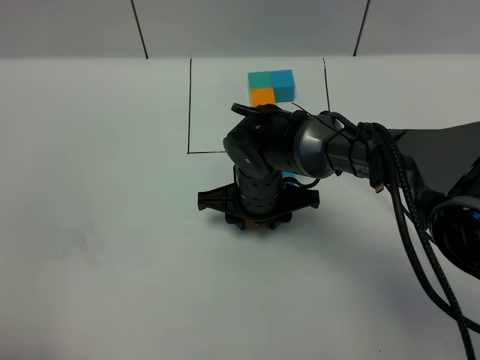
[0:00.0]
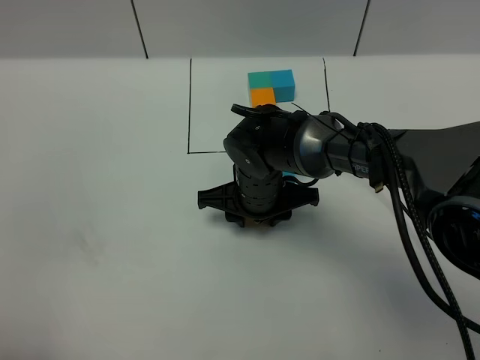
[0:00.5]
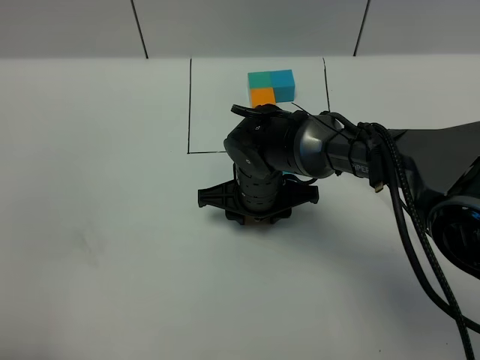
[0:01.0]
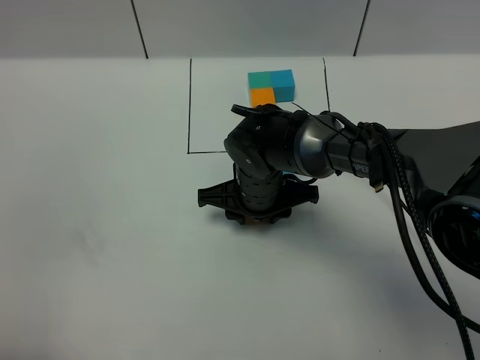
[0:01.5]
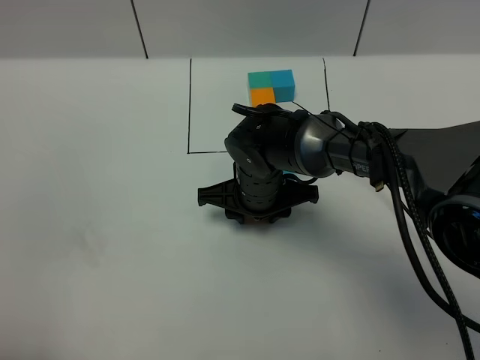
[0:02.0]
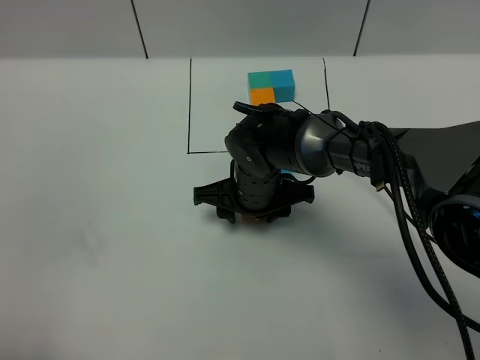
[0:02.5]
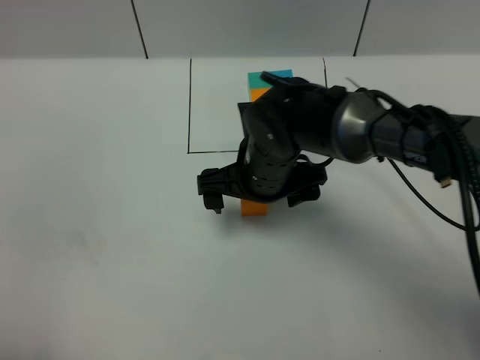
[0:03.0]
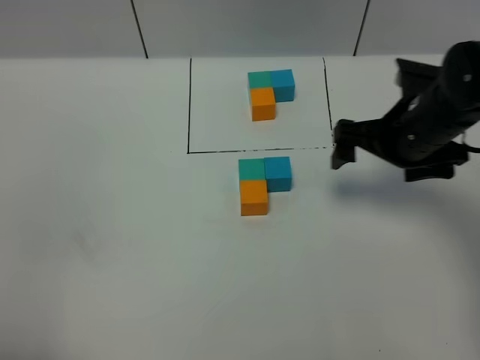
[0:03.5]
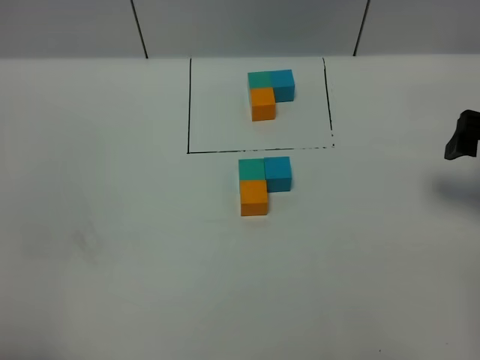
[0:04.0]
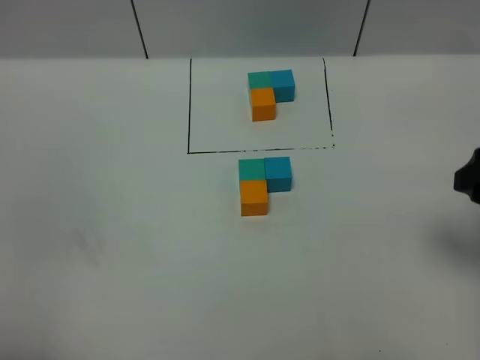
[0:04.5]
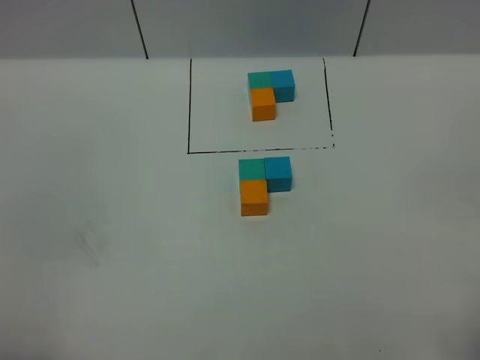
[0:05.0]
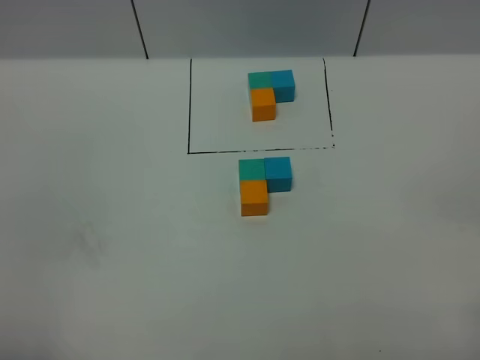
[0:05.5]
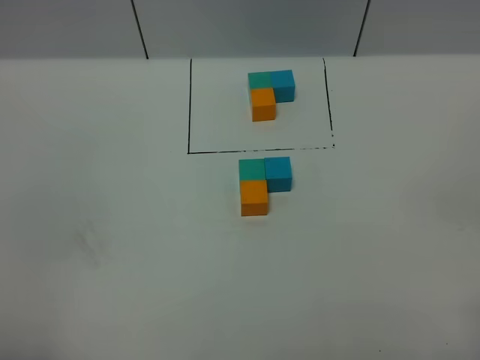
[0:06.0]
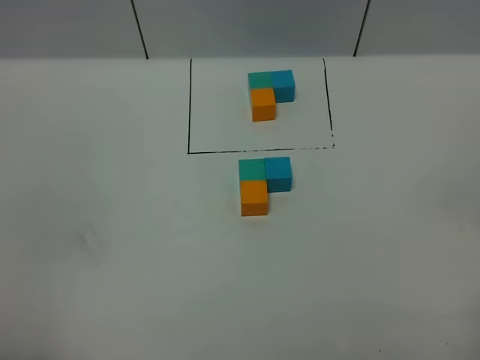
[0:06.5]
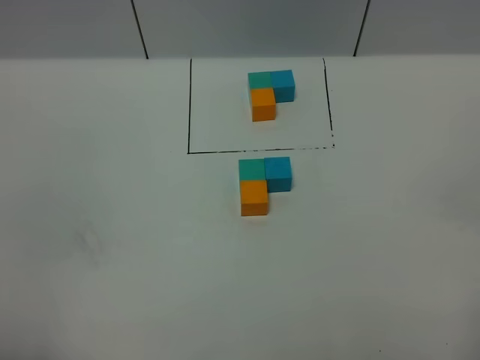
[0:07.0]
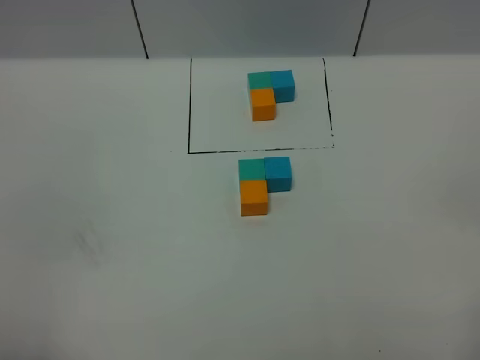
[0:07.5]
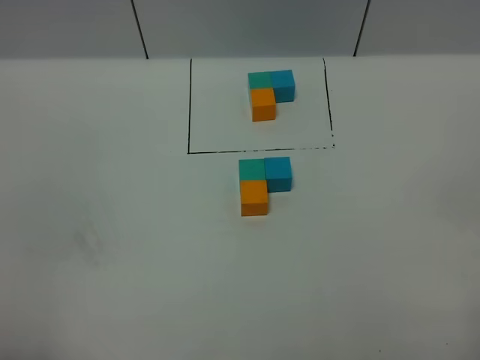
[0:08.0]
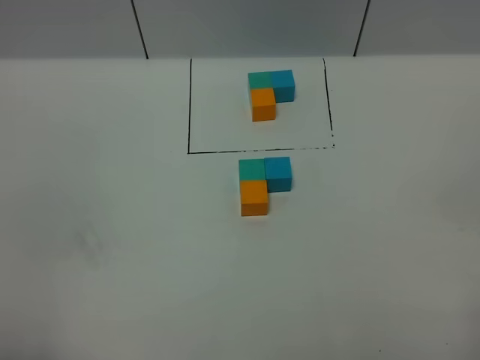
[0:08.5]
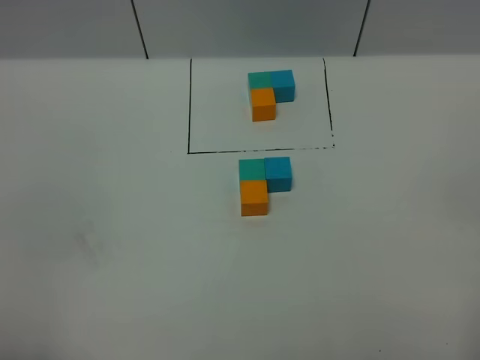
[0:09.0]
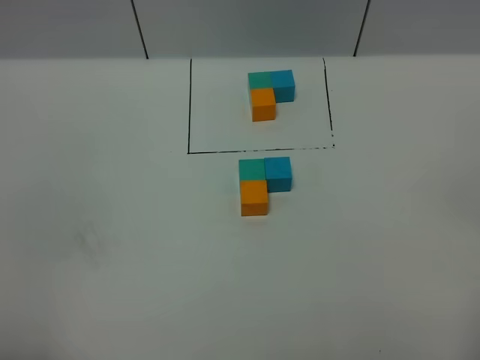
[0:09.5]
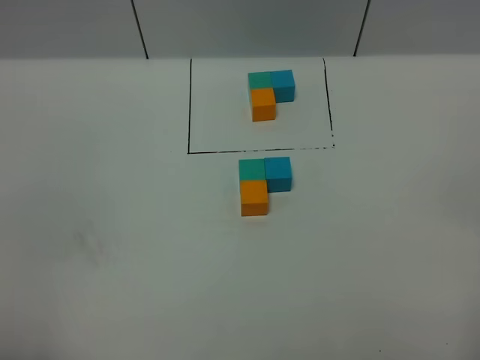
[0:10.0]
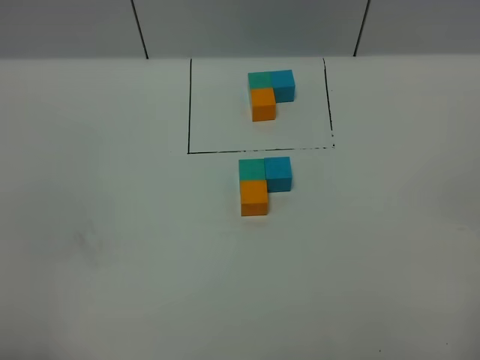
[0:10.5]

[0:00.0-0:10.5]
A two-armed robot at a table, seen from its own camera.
Task of the whole recording: According to the building block template in front, assemble the scattered blocks together.
Step, 0:00.0 to 0:02.5: Put the orange build block on the behind of the green build block.
0:00.0 to 0:02.0: Both grippers stay put.
0:02.0 to 0:04.0: The right gripper heads to the right, covering some 30 cm, and opens its fingers.
0:04.0 to 0:06.5: The right gripper shifts approximately 30 cm backward.
0:06.5 to 0:08.5: The two grippers keep their place.
